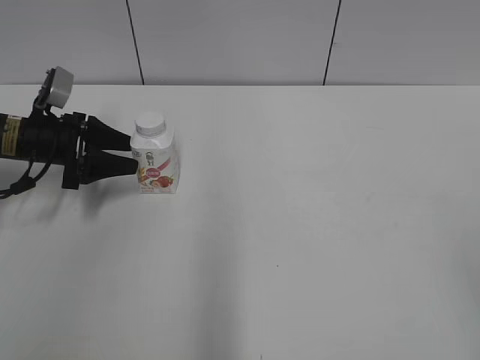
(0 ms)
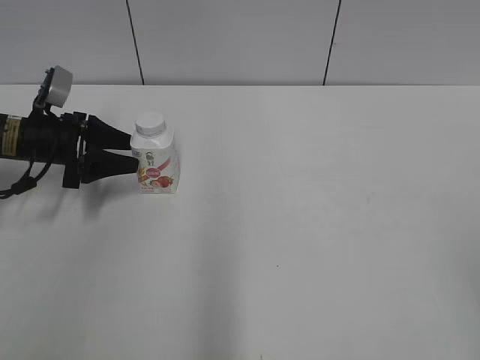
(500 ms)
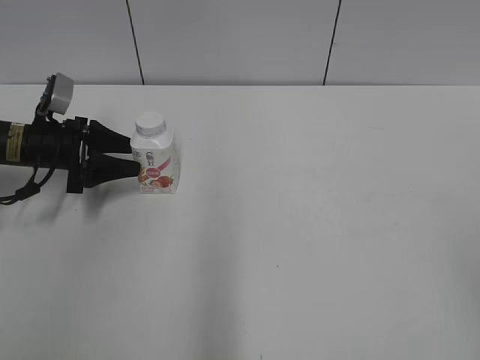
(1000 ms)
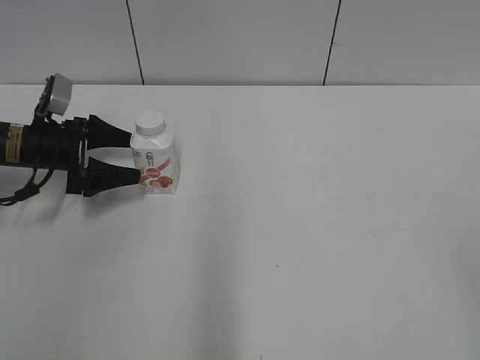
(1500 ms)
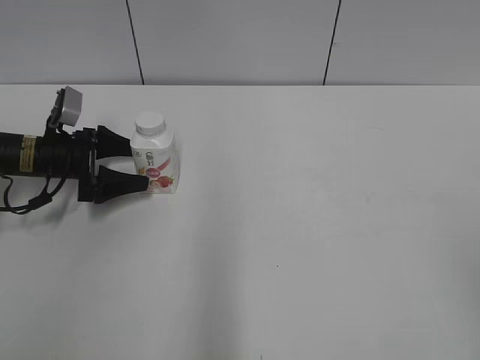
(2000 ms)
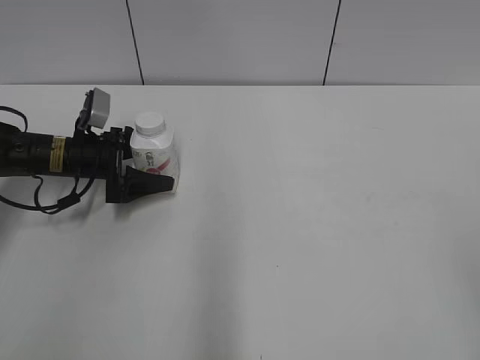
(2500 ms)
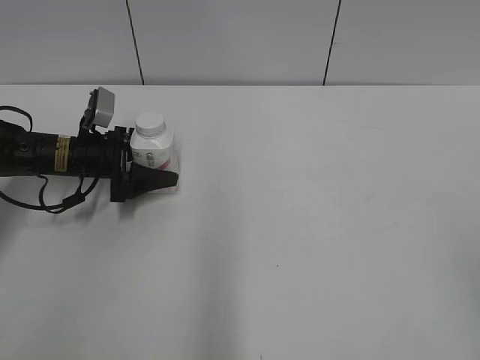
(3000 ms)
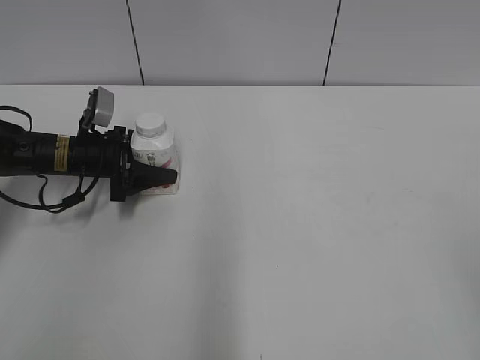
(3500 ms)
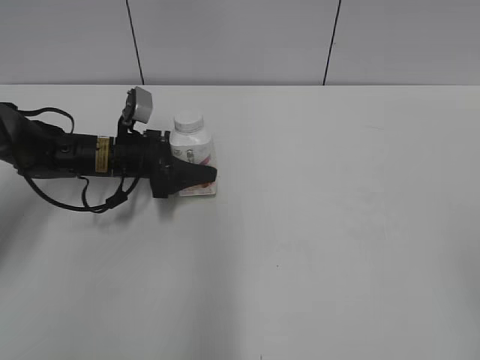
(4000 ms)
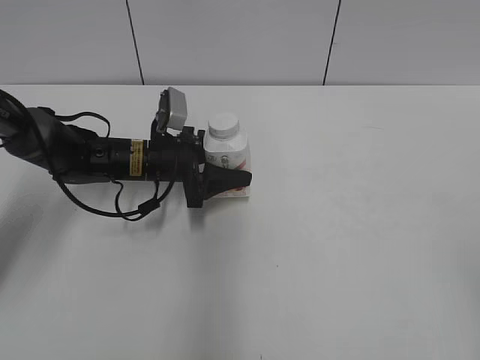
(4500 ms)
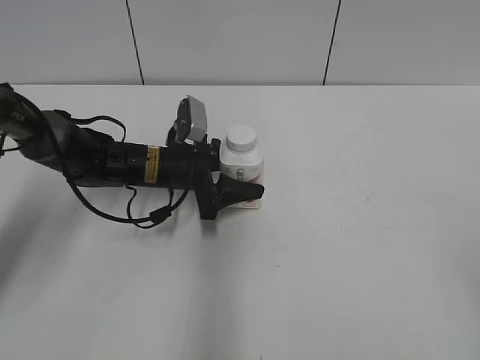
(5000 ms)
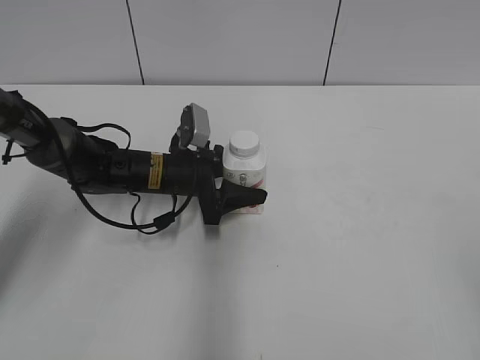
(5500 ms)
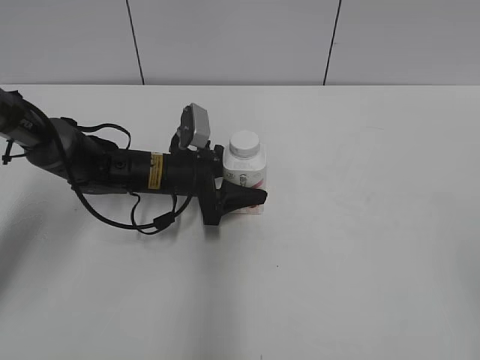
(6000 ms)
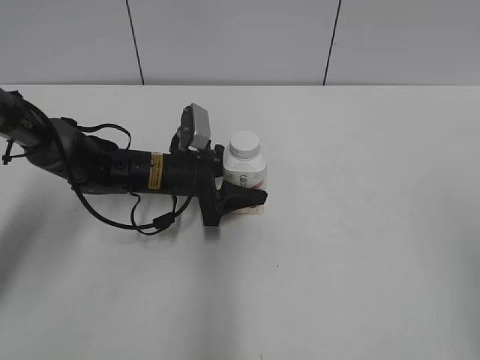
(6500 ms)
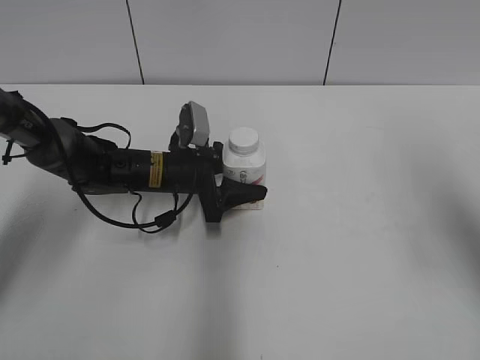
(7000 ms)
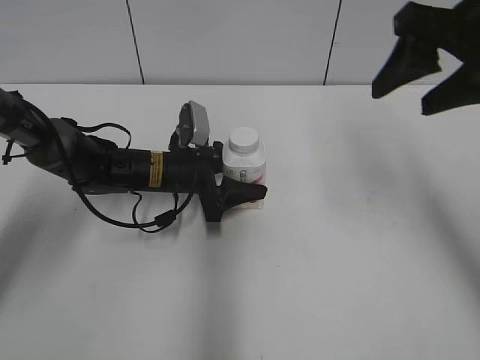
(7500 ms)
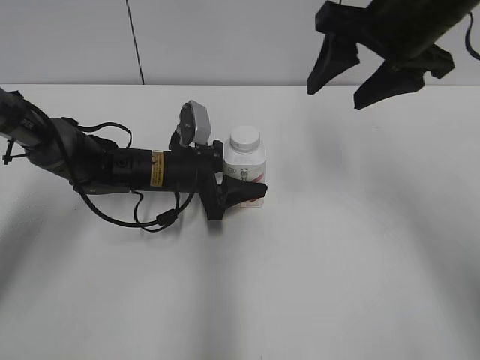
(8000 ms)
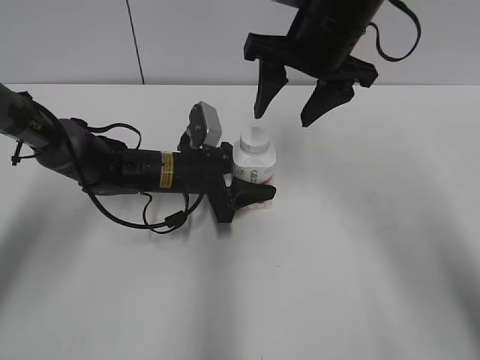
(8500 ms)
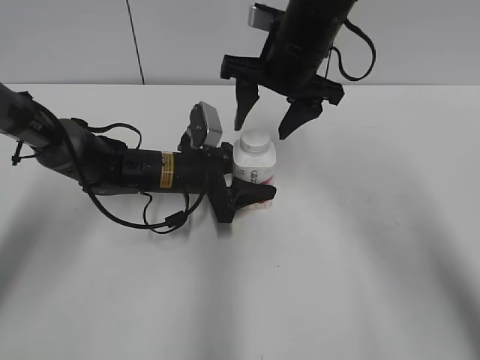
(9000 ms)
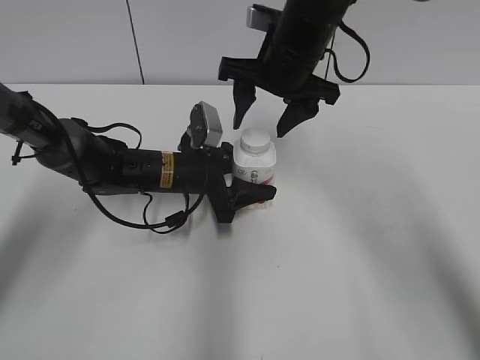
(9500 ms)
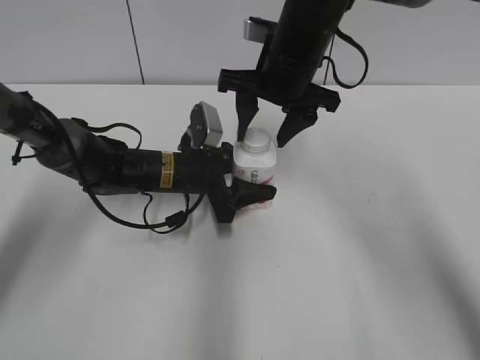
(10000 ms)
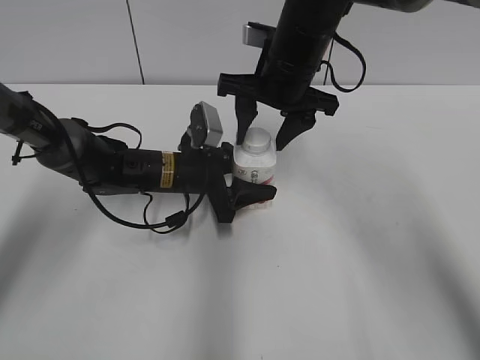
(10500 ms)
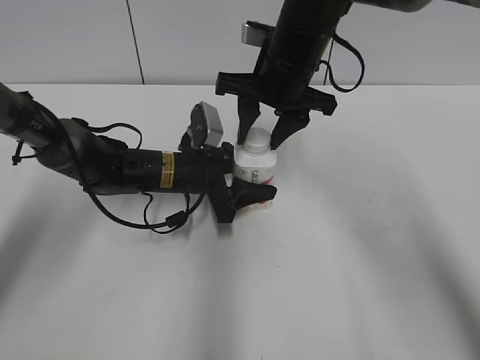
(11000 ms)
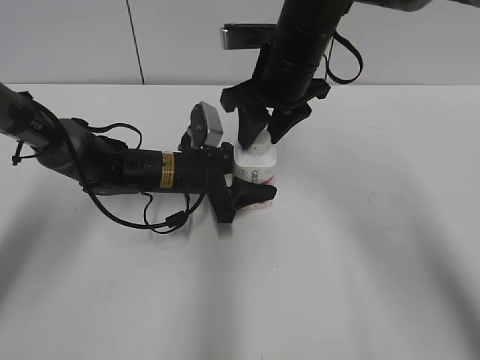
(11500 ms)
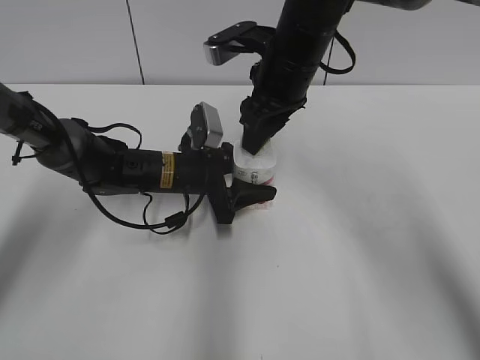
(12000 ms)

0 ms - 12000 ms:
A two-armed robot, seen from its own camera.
Step, 0 ms - 3000 ms: Grab the Yili Changqing with the left hand.
Step, 3500 ms - 5500 ms: Move the Yili Changqing from left to right.
0 ms - 2000 ms: The left gripper opens its fingers.
2000 ms - 4000 ms: The left gripper travels to the right by about 10 cm, and closes its fingers.
4000 ms - 6000 ms: The left gripper moves to the right, about 10 cm.
6000 ms - 8000 ms: The right gripper is displaced forward and to the left by approximately 35 cm.
8000 ms - 10000 ms: The right gripper shifts roughly 15 cm to the left, downward and forward.
10000 ms - 12000 ms: The right gripper closes up.

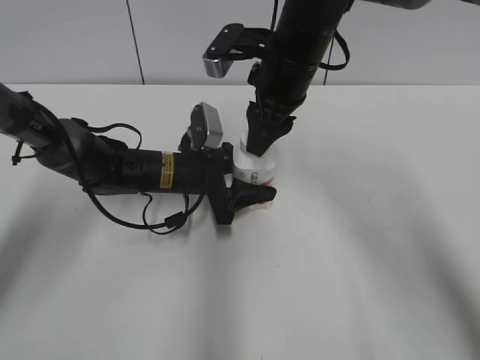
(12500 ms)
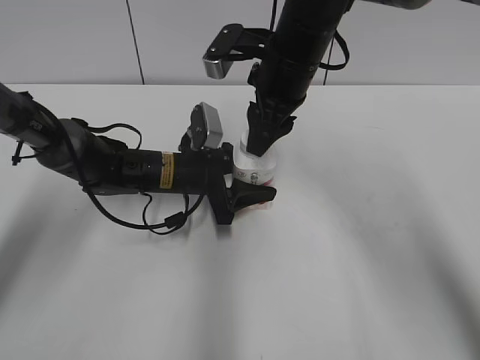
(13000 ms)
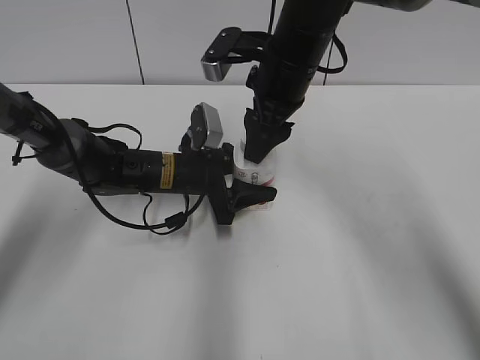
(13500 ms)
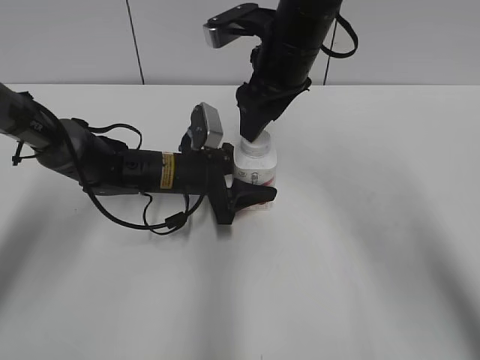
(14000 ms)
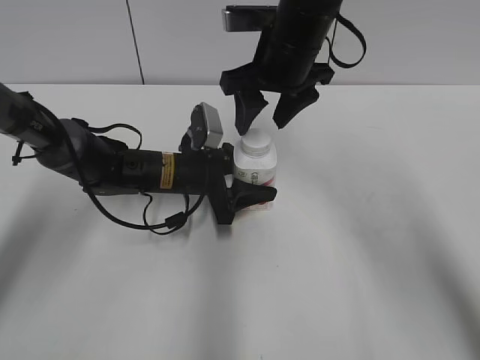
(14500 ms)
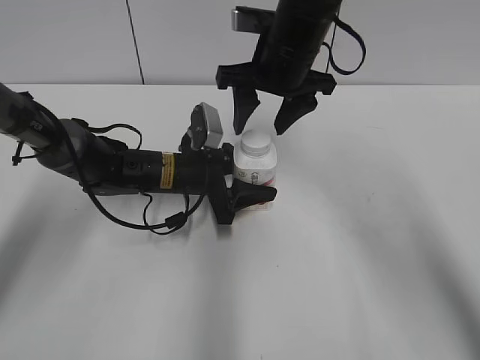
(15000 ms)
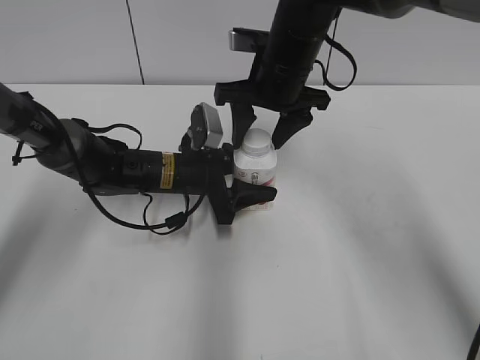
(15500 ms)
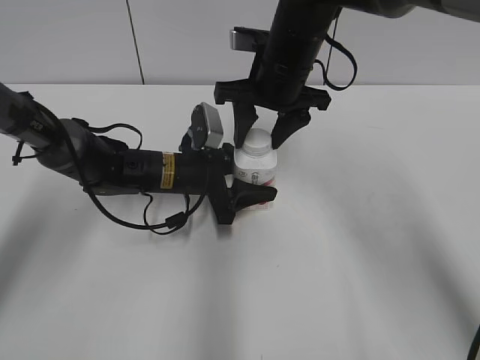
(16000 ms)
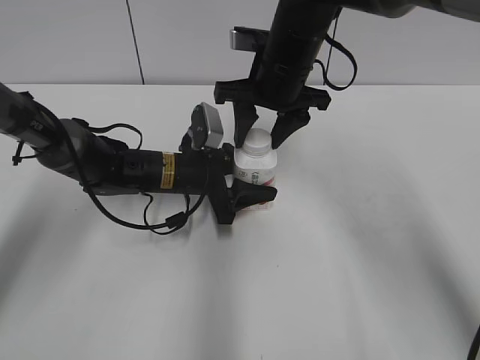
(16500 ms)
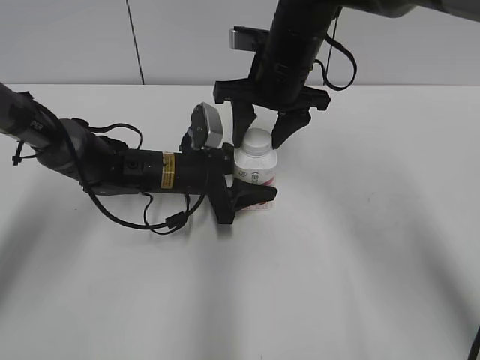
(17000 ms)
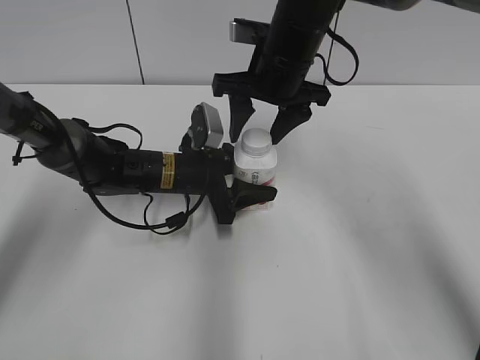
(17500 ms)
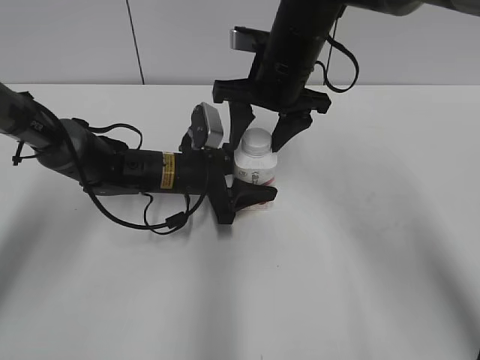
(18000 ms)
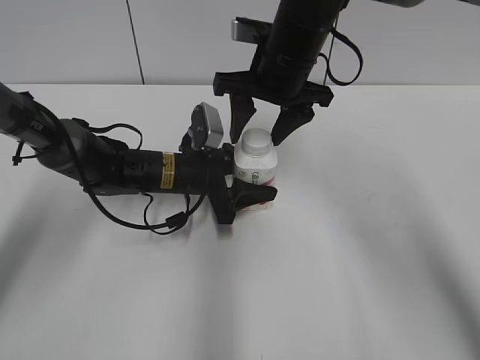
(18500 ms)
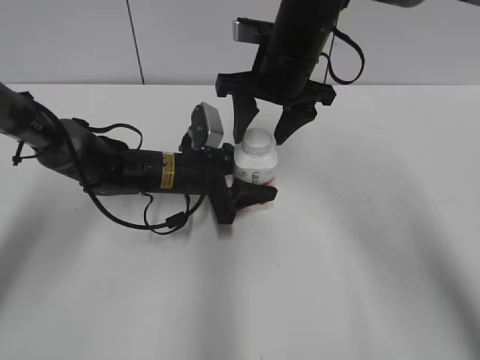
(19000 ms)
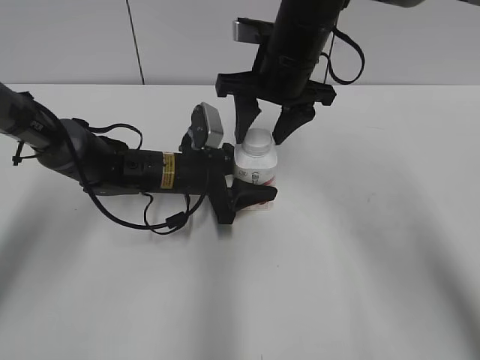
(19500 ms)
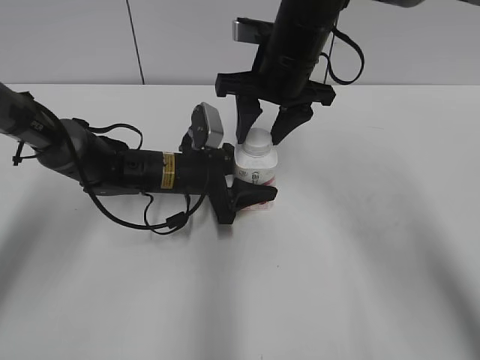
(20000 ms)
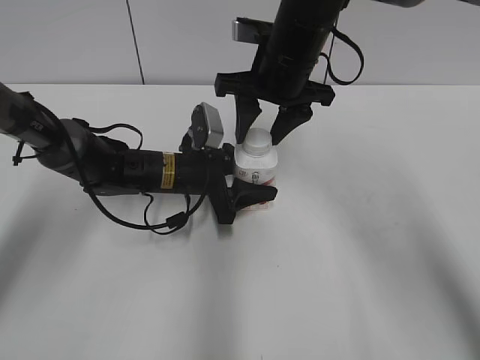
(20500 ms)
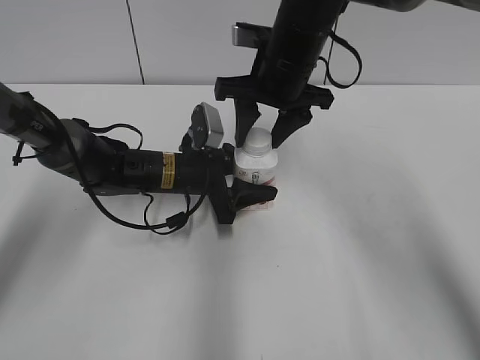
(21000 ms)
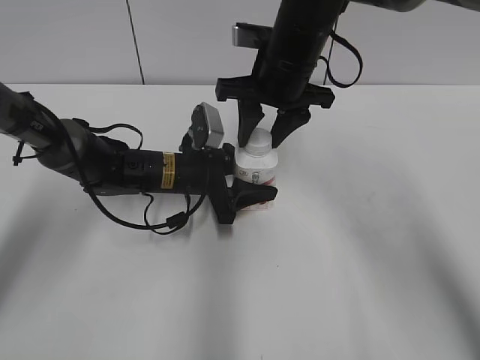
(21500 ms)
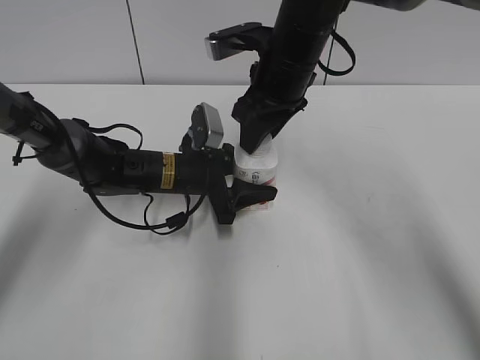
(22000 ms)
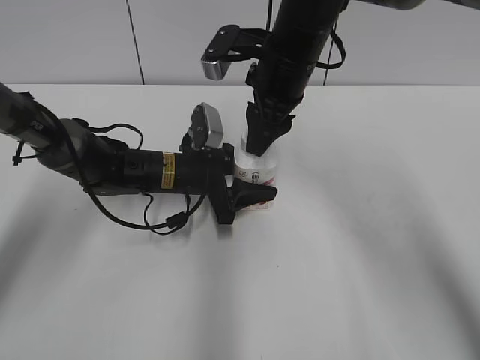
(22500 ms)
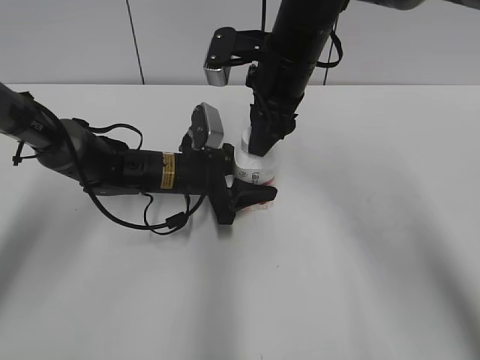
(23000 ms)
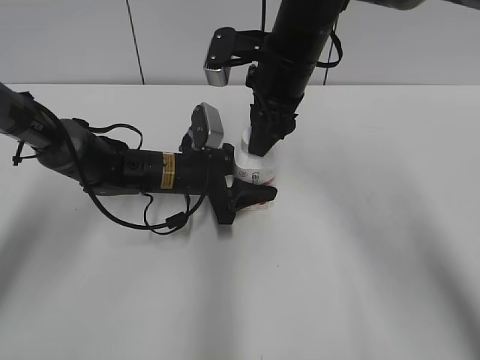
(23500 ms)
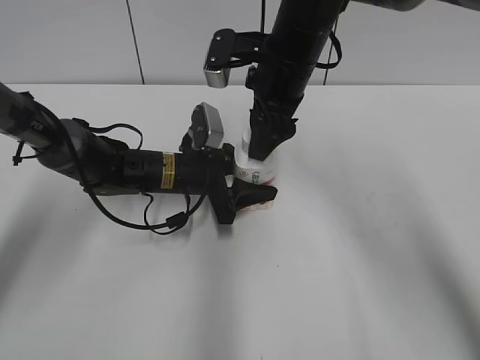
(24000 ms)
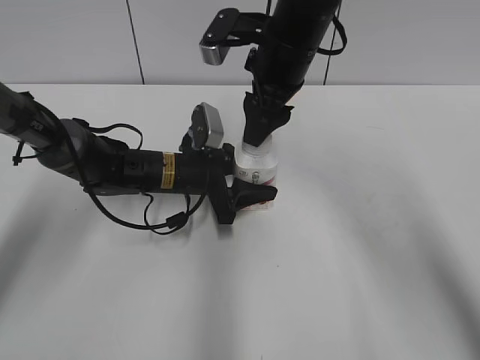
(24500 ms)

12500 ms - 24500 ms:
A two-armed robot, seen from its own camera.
12500 ms - 14500 ms: The right gripper opens its fingers.
14500 ms - 18500 ms: The grippers move only a little.
18500 ms - 20500 ms: The right gripper closes its fingers.
22500 ms - 24500 ms: The right gripper opens.

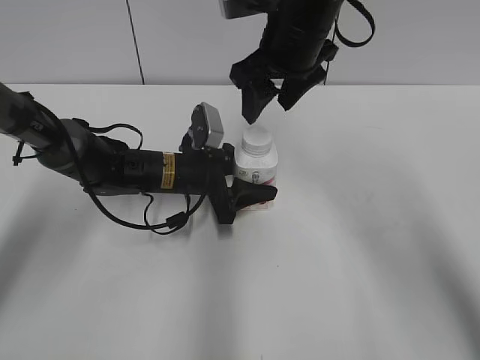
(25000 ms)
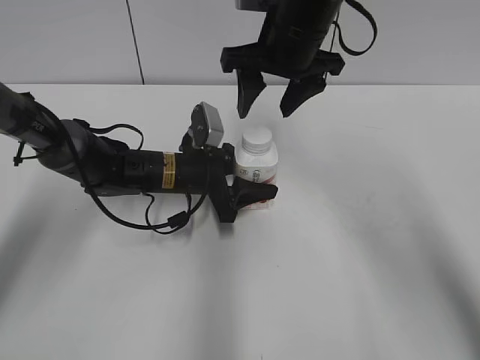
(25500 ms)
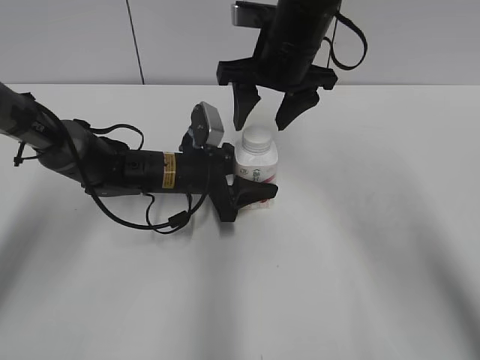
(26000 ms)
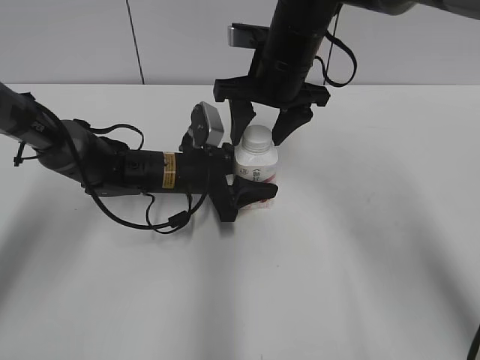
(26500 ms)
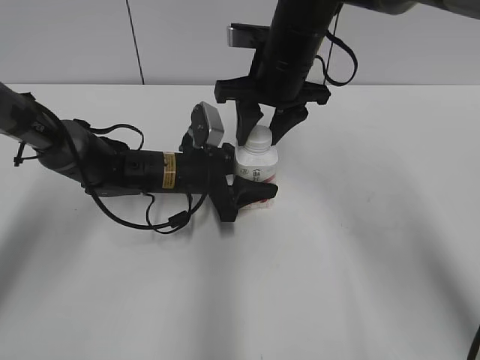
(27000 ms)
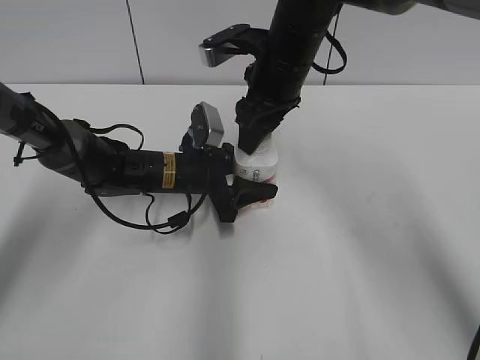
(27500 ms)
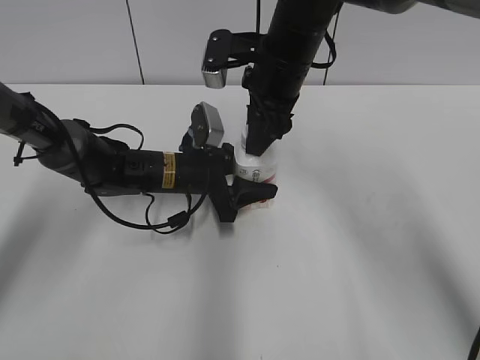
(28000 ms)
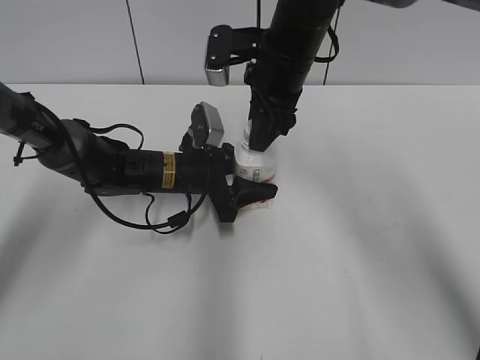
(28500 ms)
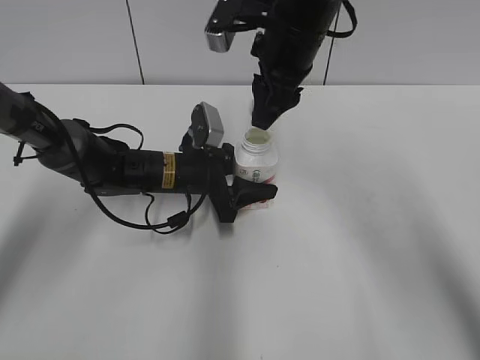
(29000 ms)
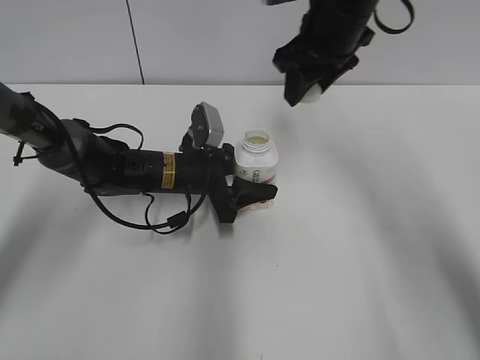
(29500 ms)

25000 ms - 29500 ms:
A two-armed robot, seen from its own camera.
Step, 25000 ms - 28500 ms: Twist the bottle cap with the right hand.
25000 ms - 27000 ms: The right gripper closes its fingers.
27000 ms - 29500 ms: The right gripper moves to the right, approximately 5 cm.
